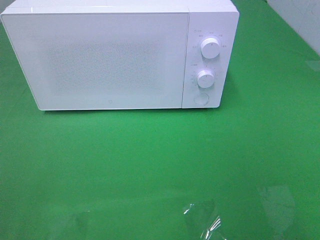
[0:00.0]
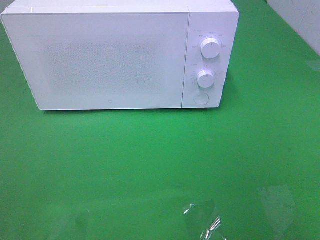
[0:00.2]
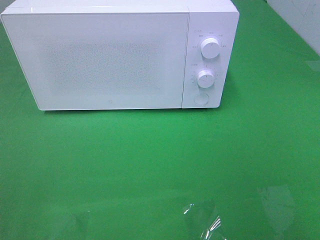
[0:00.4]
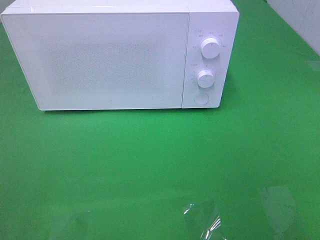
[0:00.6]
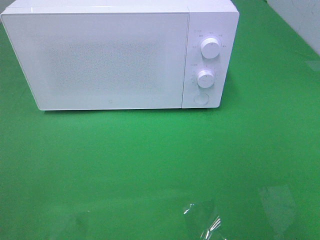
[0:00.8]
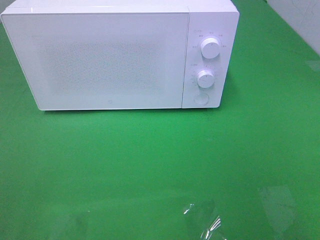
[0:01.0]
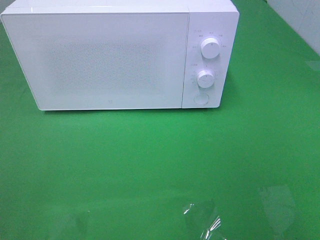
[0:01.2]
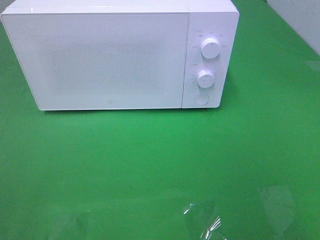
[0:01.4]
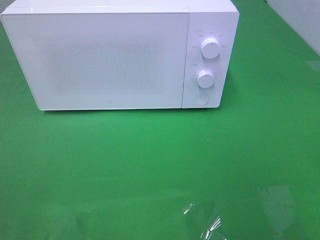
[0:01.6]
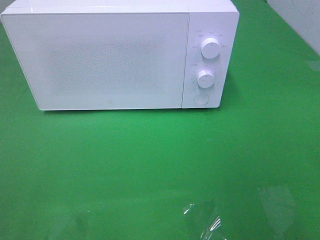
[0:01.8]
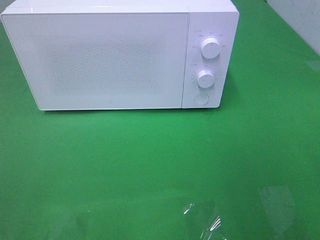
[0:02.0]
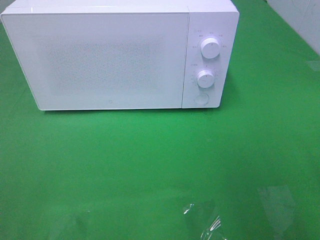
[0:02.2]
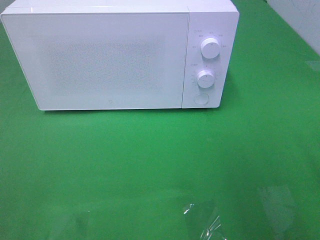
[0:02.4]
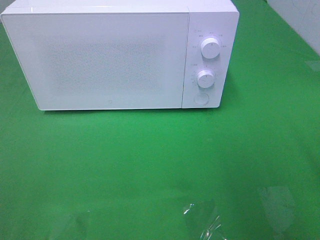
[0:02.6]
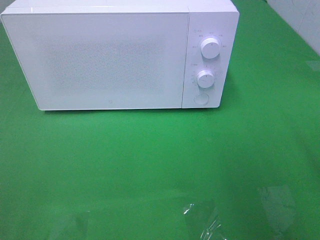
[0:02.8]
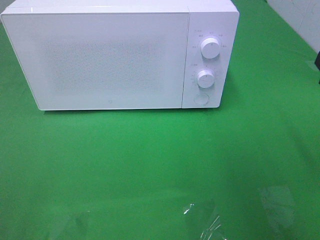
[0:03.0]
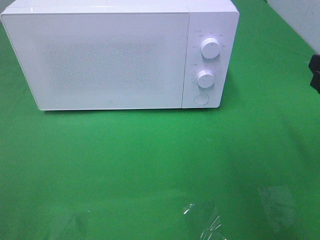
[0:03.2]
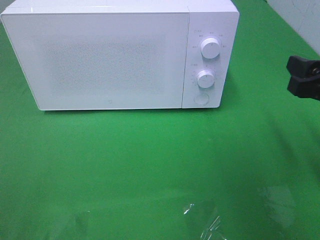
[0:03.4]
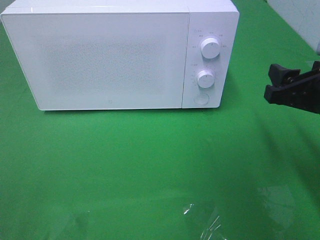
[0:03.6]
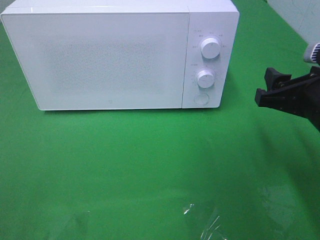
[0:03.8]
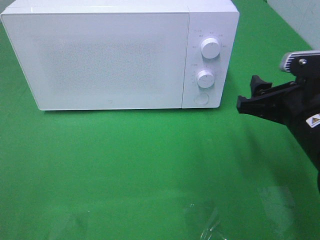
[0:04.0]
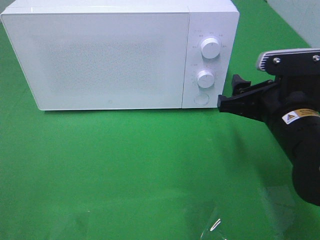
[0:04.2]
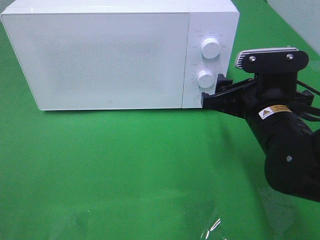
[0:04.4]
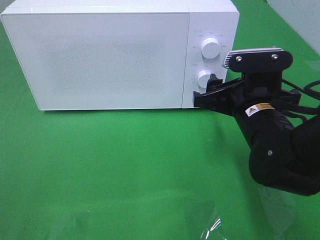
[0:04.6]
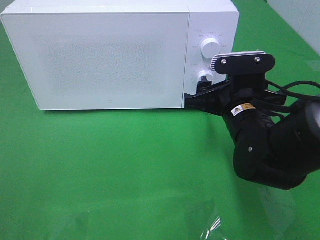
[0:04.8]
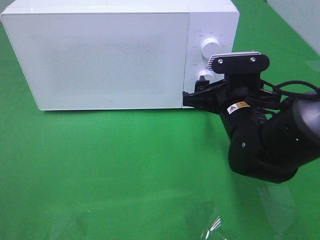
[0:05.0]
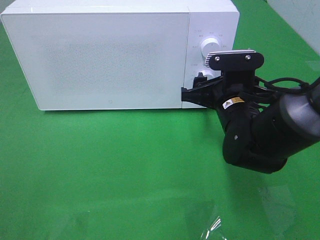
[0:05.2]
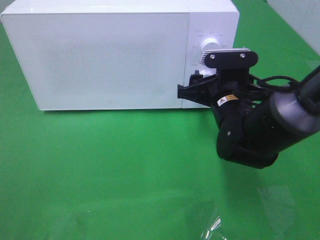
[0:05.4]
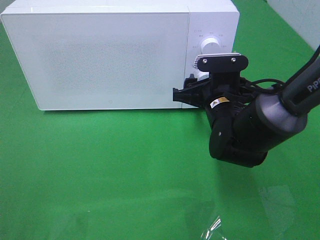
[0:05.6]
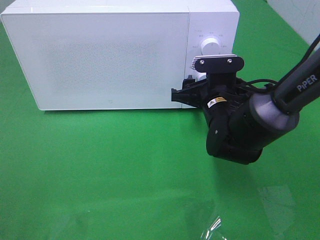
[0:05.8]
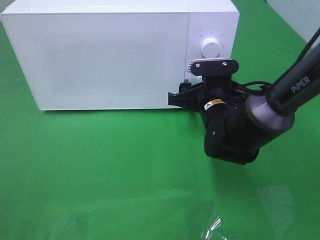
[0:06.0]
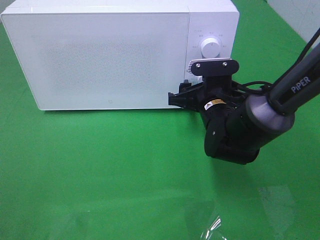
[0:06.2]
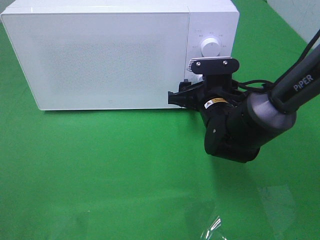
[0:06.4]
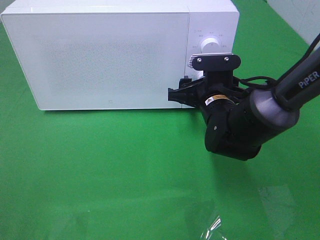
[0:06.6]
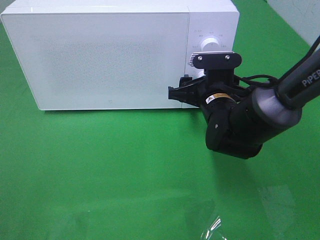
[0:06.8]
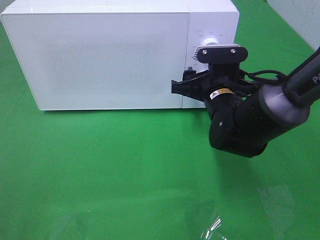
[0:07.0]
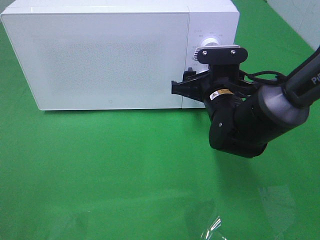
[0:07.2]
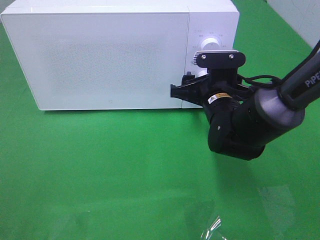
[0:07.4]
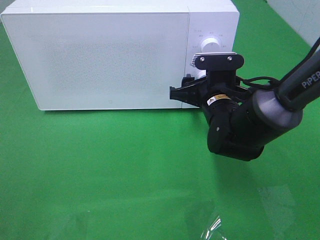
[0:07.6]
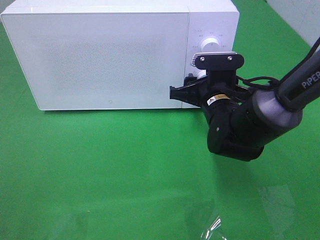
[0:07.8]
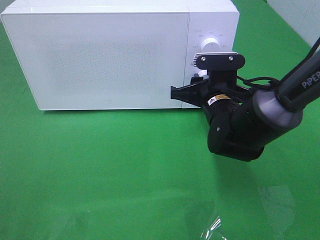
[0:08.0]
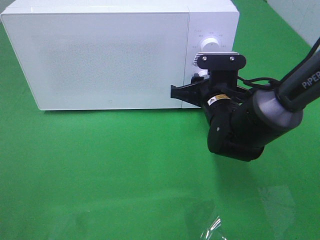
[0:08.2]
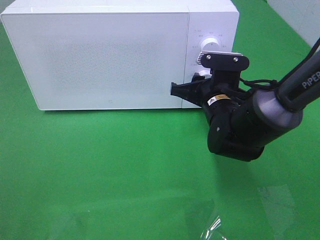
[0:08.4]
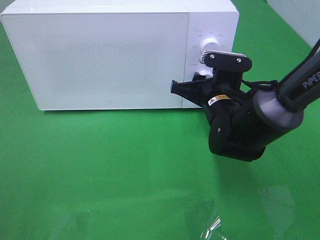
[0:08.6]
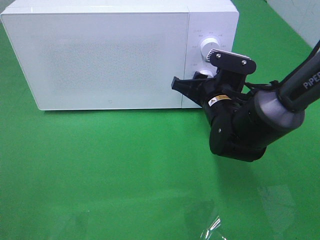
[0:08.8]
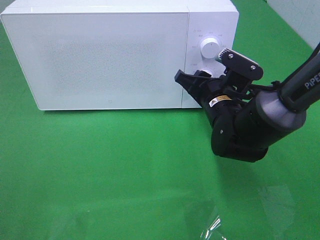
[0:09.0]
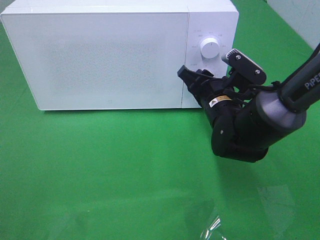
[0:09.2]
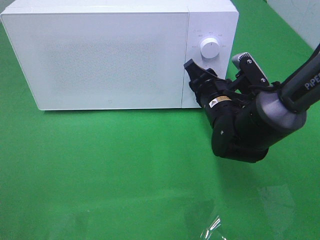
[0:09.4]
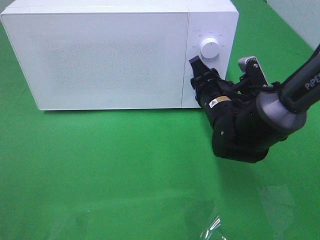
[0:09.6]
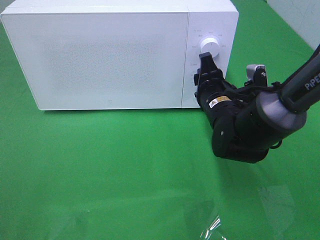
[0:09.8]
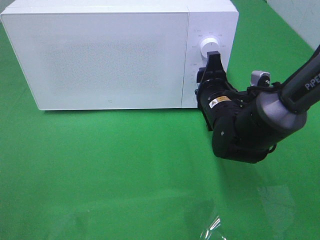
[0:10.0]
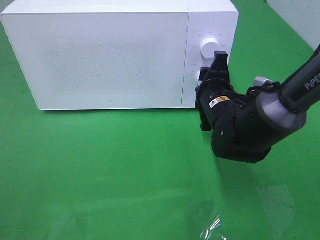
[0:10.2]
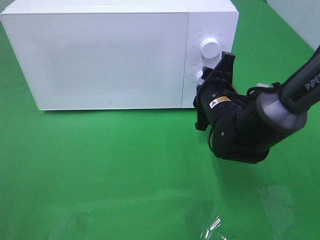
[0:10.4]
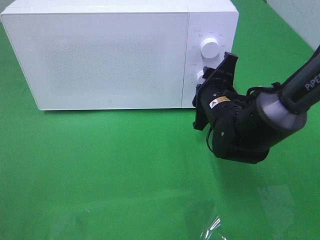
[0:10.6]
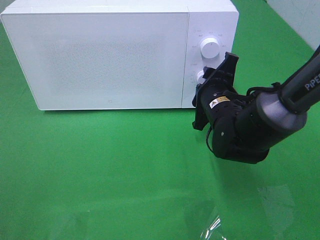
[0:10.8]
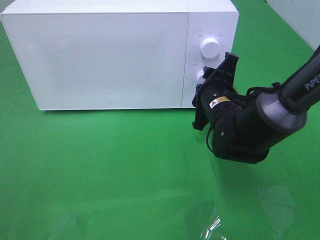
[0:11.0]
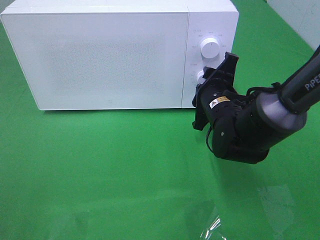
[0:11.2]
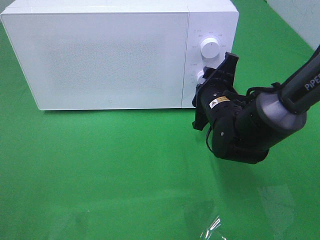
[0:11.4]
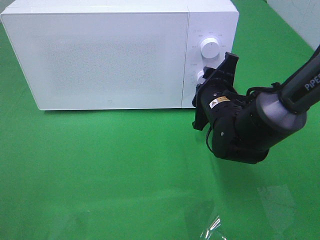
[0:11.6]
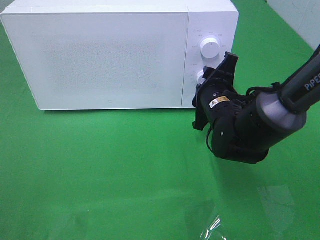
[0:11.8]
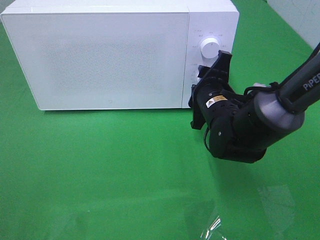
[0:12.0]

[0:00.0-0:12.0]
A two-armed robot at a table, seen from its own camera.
Task of the whole recording: Heat the burger.
0:03.0 to 0:04.4: The right gripper heads to the left and downward, covering approximately 15 cm.
0:04.4 to 0:06.0: The right gripper moves forward and downward, approximately 10 cm.
0:06.0 to 0:07.6: The grippers stay close to where they were, moving slightly.
0:10.4 to 0:12.0: Neither gripper changes place.

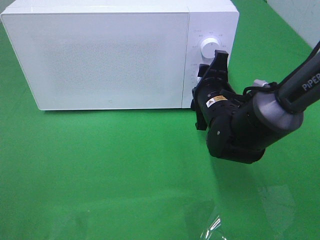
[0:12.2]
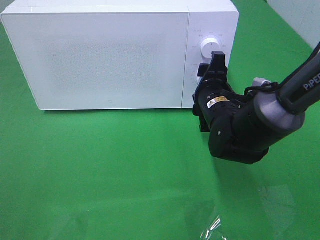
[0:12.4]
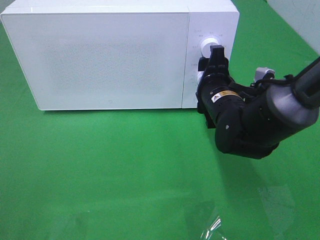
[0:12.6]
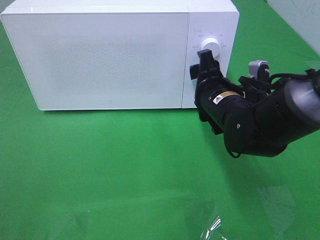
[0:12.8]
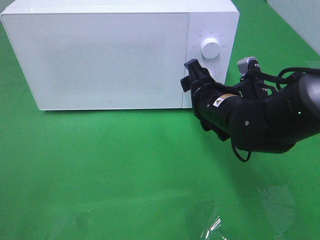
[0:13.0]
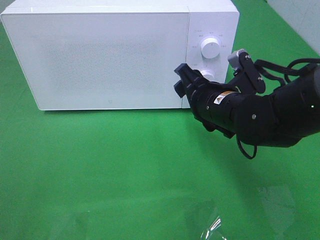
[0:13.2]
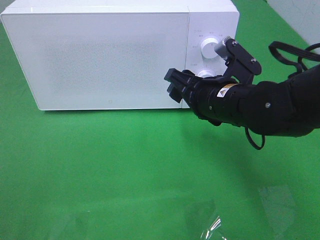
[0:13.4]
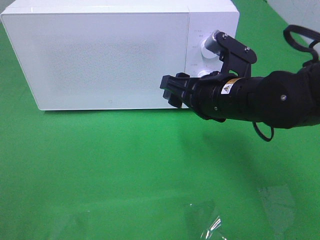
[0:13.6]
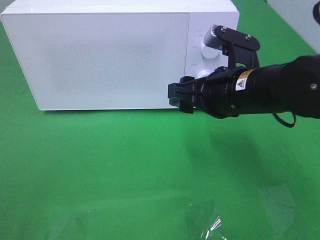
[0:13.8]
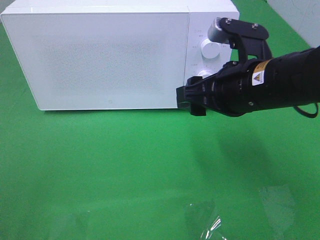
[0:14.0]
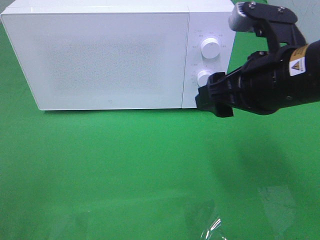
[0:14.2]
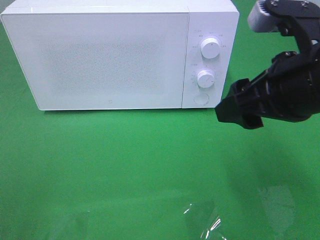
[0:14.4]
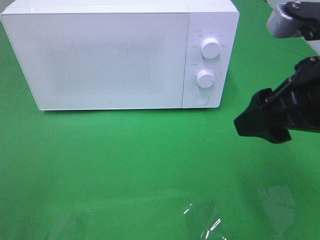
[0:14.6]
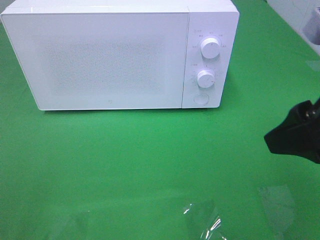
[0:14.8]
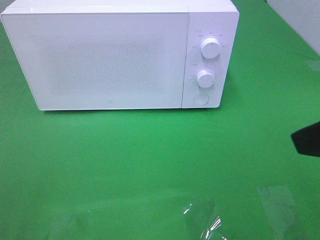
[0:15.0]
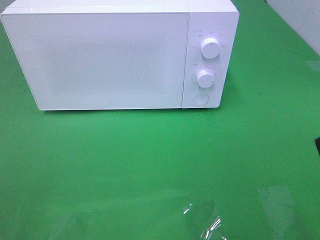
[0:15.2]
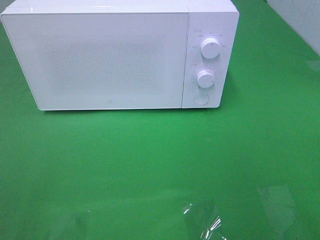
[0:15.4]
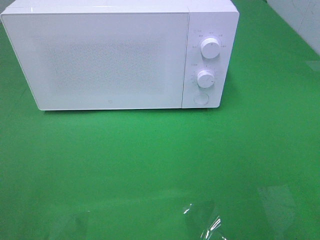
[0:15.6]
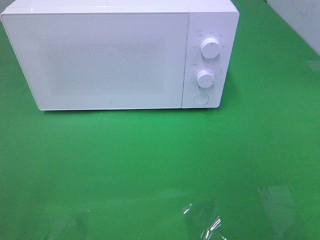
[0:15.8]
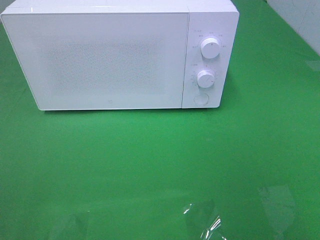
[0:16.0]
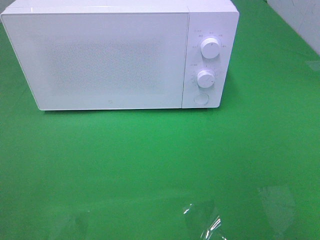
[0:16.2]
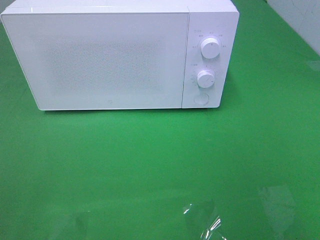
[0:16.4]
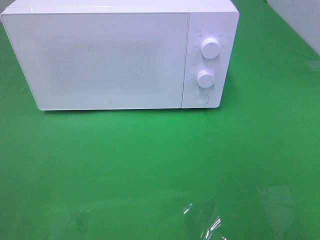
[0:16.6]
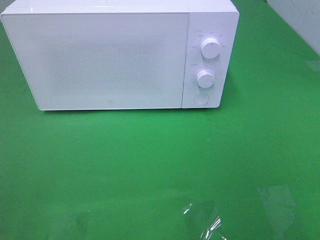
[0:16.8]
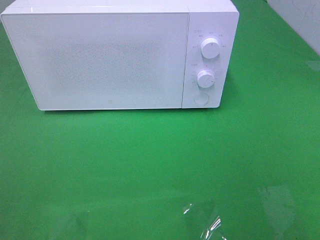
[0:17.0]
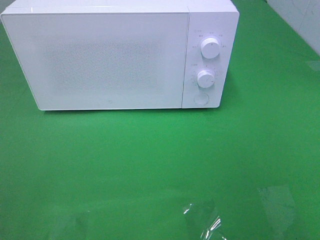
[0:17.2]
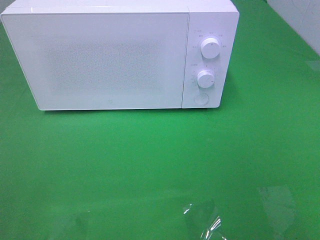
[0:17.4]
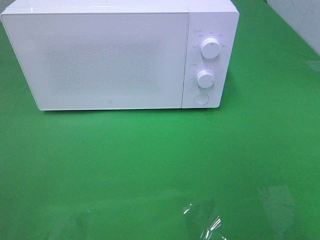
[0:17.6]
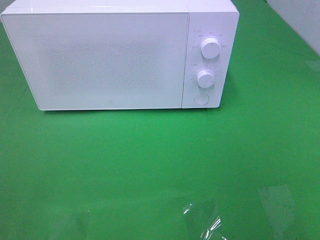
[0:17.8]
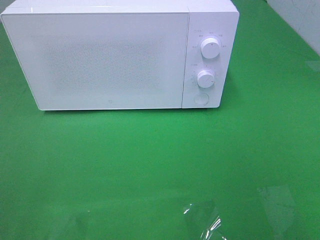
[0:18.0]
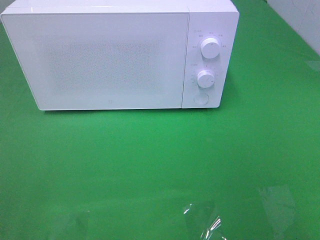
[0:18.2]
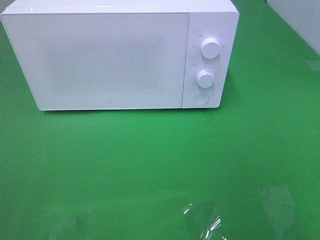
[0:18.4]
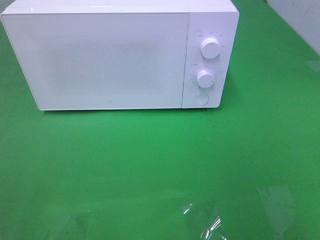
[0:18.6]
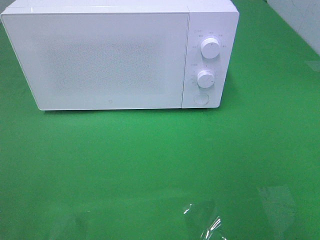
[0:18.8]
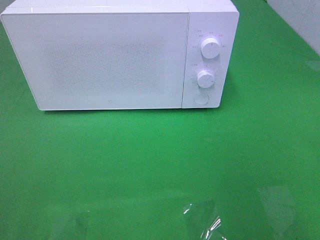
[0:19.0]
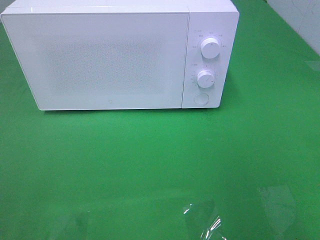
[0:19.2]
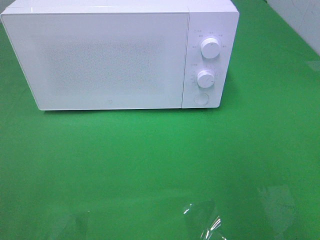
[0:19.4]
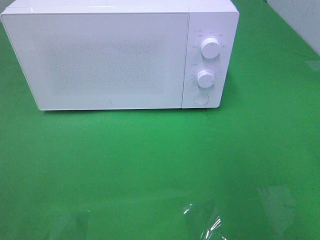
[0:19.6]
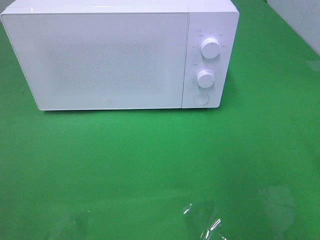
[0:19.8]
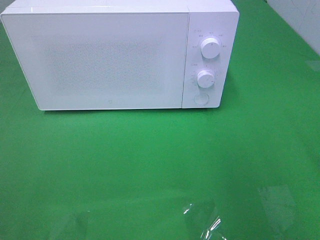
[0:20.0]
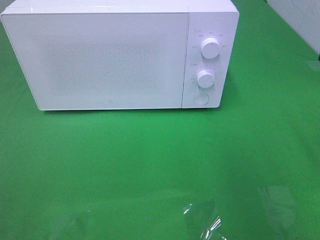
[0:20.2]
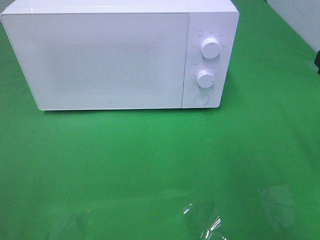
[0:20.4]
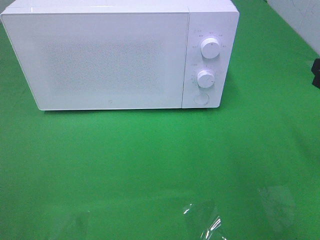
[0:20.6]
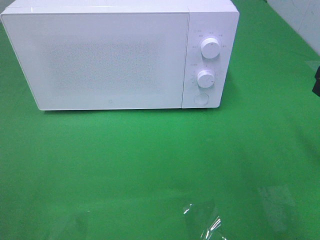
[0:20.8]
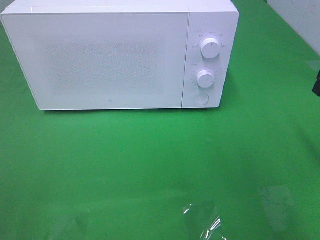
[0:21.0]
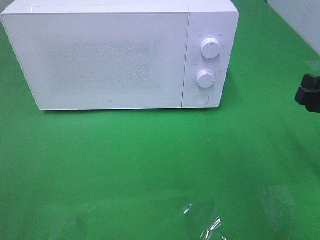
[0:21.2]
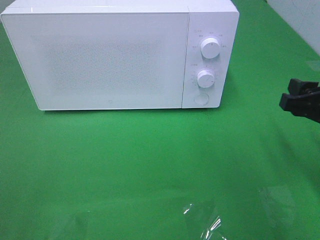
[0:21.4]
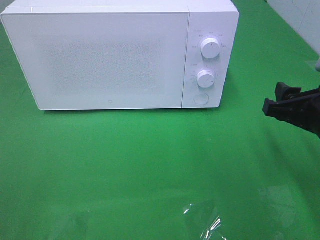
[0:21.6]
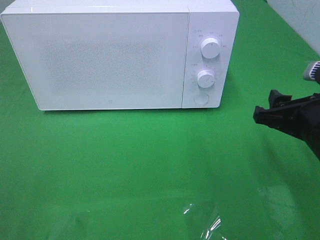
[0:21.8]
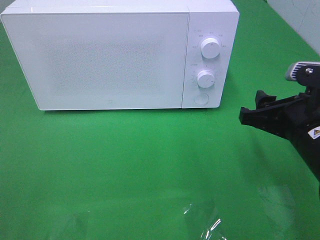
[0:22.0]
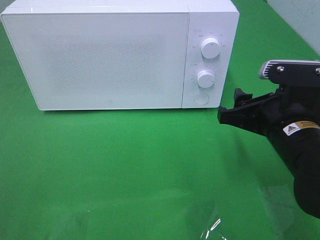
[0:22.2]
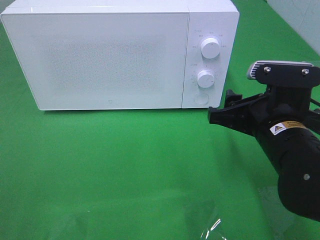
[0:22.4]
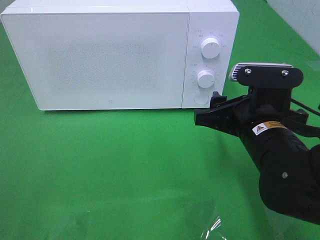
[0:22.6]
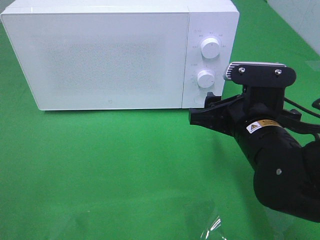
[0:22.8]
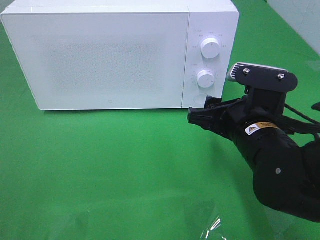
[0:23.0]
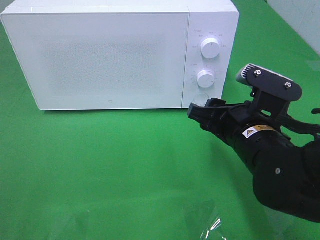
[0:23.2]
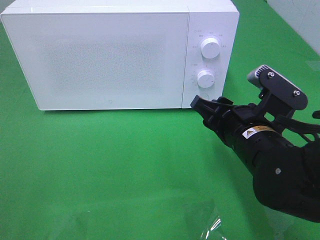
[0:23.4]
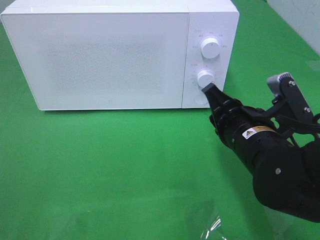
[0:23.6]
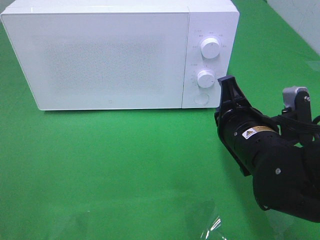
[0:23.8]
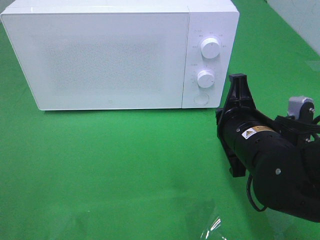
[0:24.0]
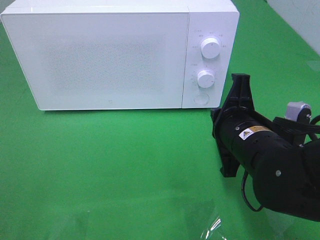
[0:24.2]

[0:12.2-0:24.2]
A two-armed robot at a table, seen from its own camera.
Task of the whole recording: Heat the burger.
0:12.2 to 0:13.8: The right gripper moves upward and backward, roughly 10 cm.
0:13.8 to 0:15.2: The right gripper goes approximately 25 cm backward, upward and to the right.
0:16.6 to 0:18.2: Both grippers stay about where they are.
0:19.8 to 0:21.2: The right gripper travels downward by approximately 10 cm.
0:21.2 to 0:22.6: The right gripper moves to the left, roughly 15 cm.
0:22.6 to 0:24.2: The right gripper closes its fingers.
